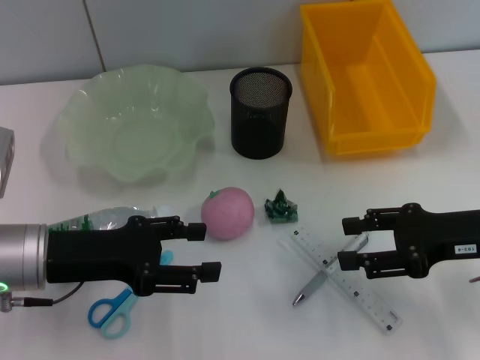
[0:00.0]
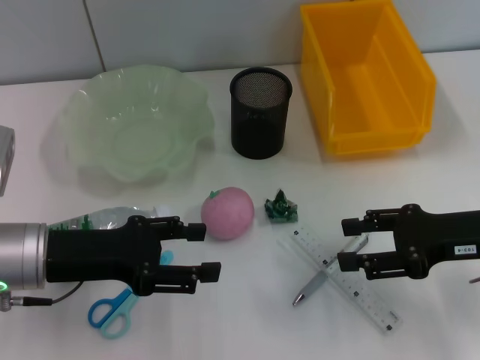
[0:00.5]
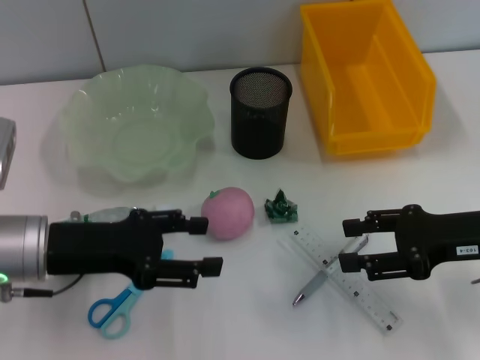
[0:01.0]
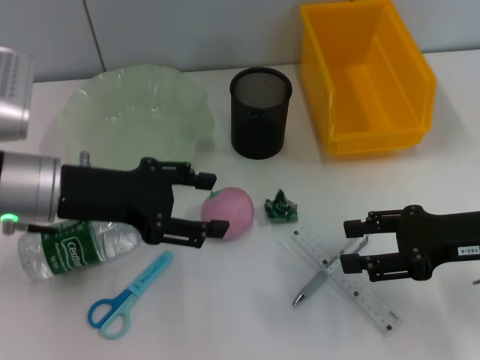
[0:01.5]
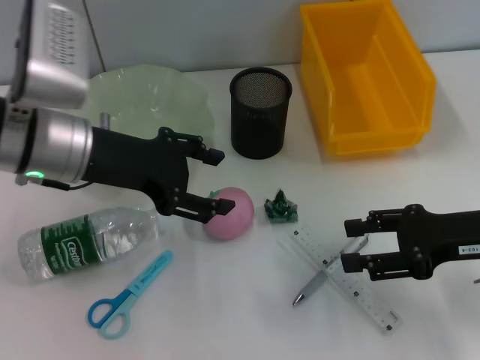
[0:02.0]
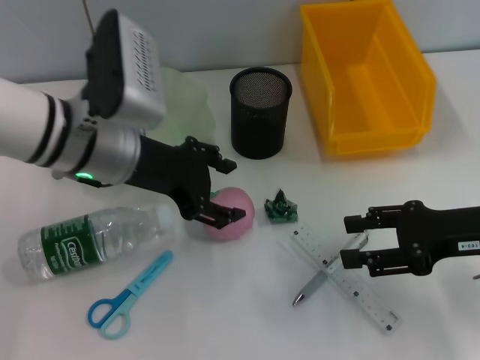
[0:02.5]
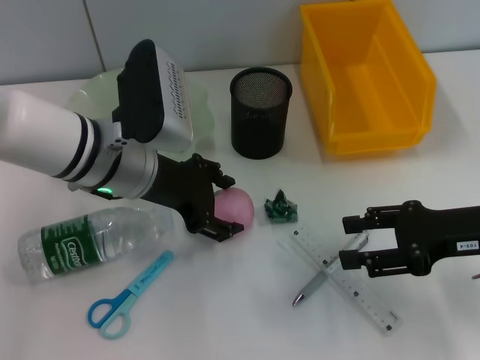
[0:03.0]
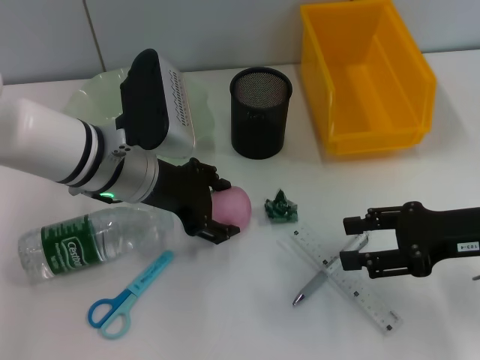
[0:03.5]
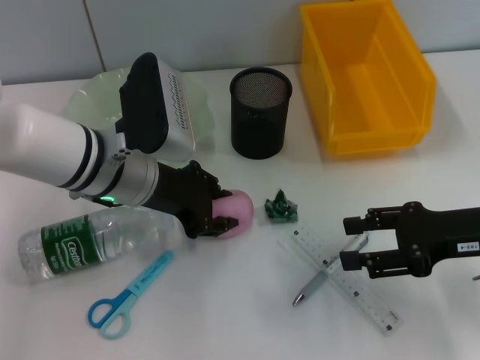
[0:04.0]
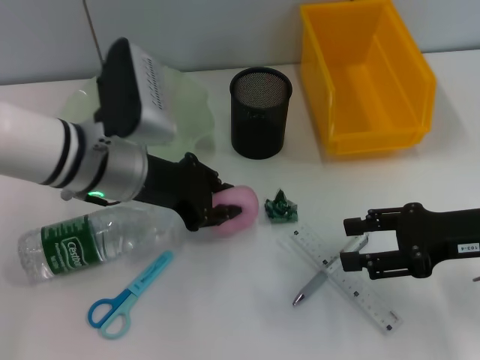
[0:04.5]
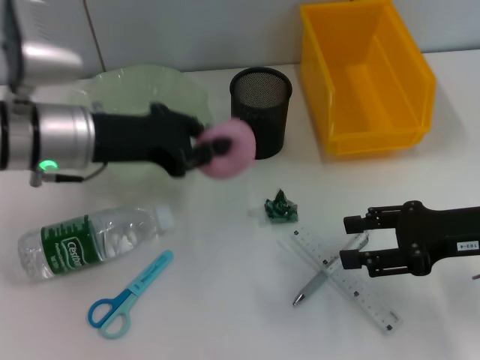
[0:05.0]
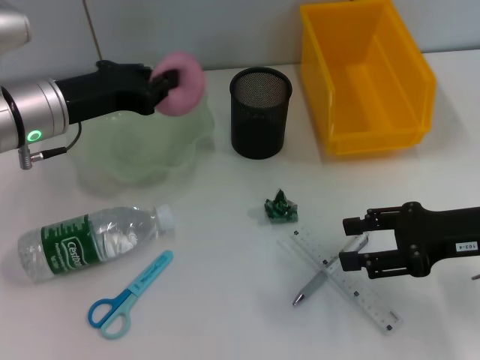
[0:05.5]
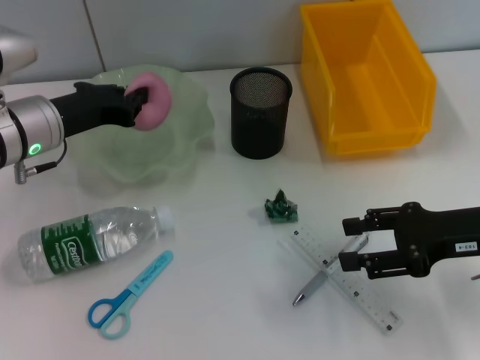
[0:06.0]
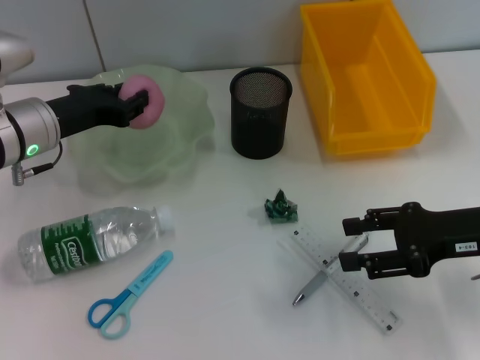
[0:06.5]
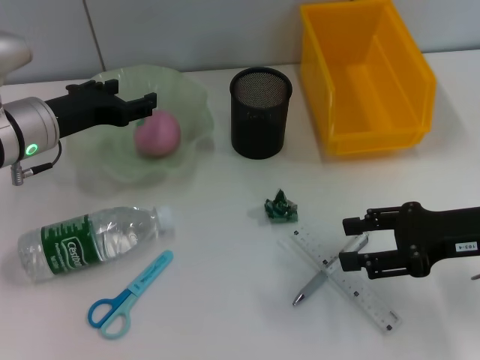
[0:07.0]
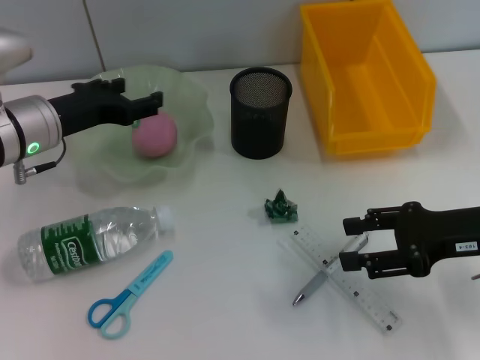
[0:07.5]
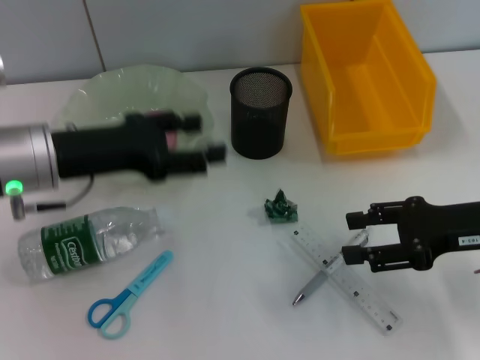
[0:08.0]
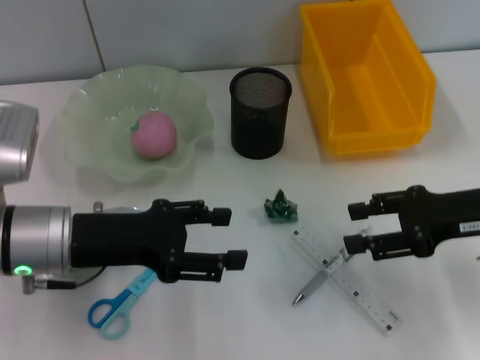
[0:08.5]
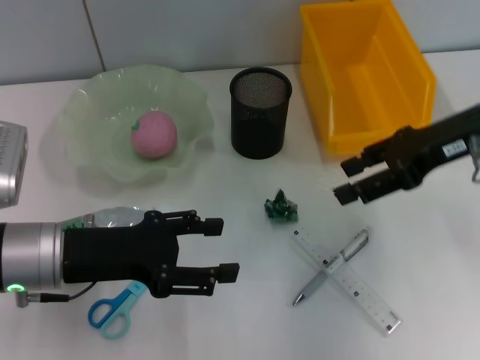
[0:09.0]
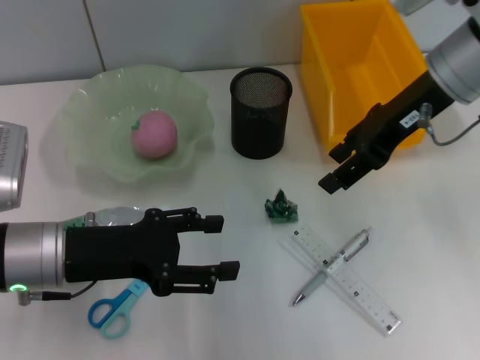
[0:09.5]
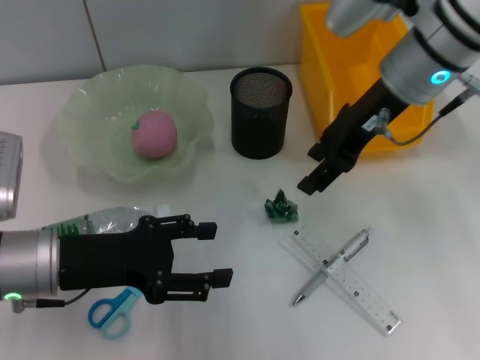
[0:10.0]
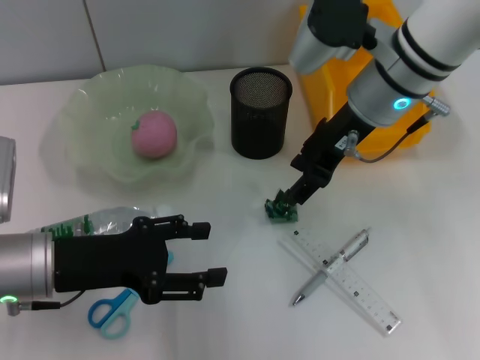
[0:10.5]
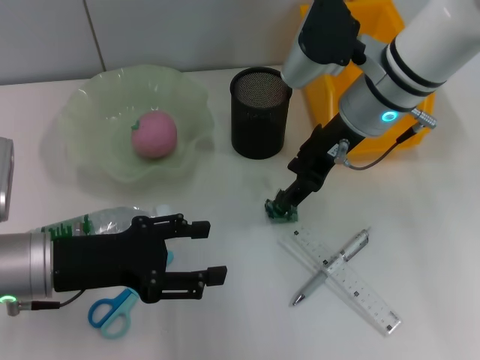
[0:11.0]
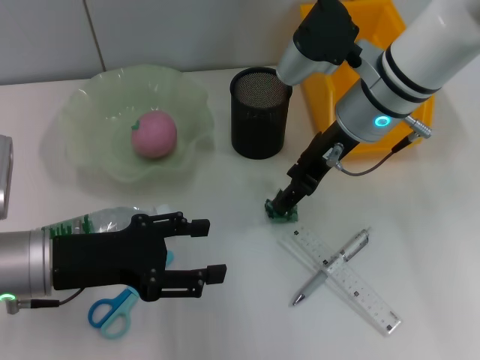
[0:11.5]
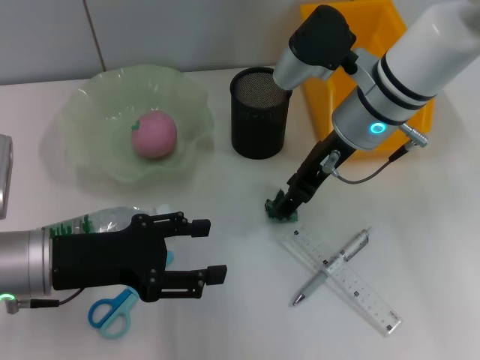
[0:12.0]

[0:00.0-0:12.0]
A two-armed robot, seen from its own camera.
Step, 0:00.0 to 0:04.0: Grab the peach with the left hand.
Step, 0:04.5 to 0:07.5: Place the peach into the fruit bowl with the left hand.
0:00.0 to 0:02.0: The left gripper is displaced upward and forward by approximately 10 cm.
0:02.0 to 0:04.0: The left gripper shifts about 5 cm to the right.
0:04.0 to 0:06.0: The left gripper is displaced to the left by approximately 10 cm, and closes its fingers.
0:06.0 to 0:08.0: The left gripper heads backward, covering about 5 cm, and opens up.
0:08.0 to 0:10.0: The left gripper heads backward and downward, covering roughly 10 cm. The right gripper moves to the left, forward and upward, some 20 cm.
0:10.0 to 0:12.0: The right gripper heads downward, covering some 5 cm.

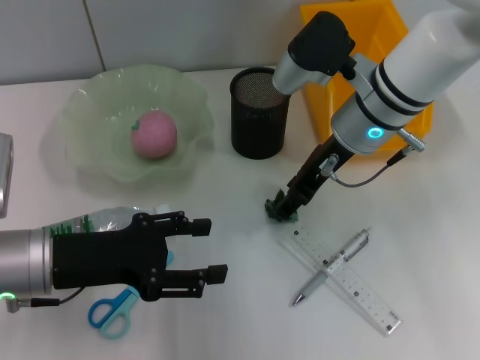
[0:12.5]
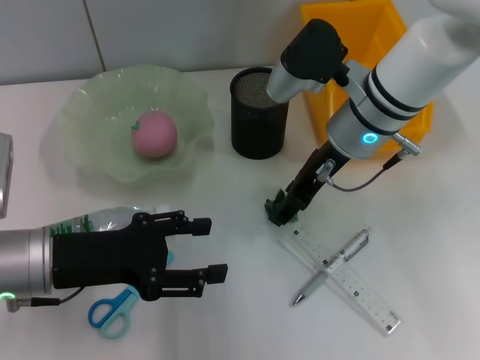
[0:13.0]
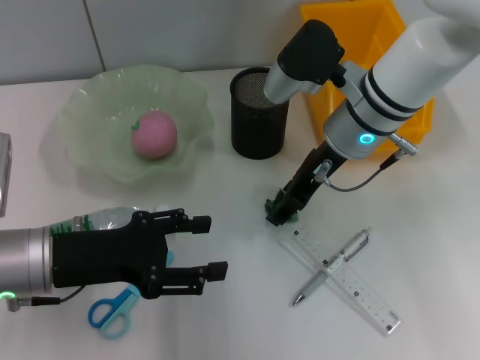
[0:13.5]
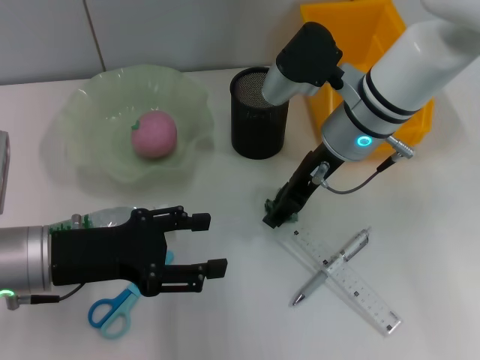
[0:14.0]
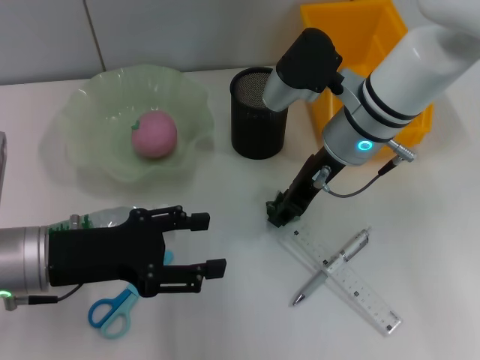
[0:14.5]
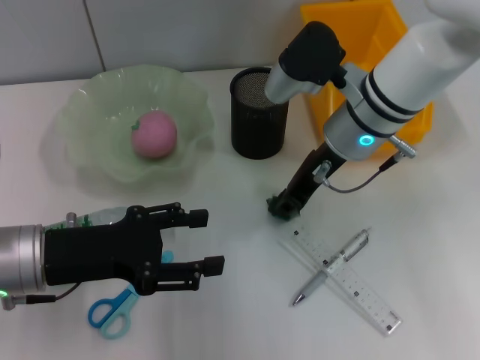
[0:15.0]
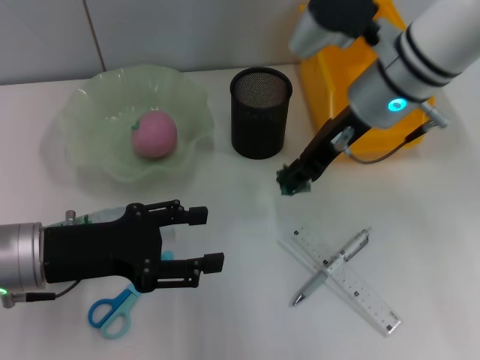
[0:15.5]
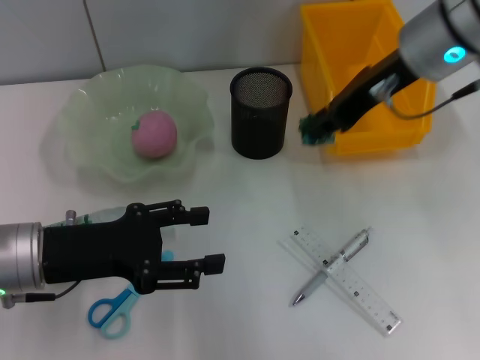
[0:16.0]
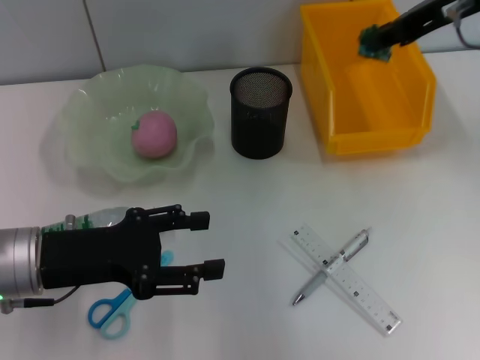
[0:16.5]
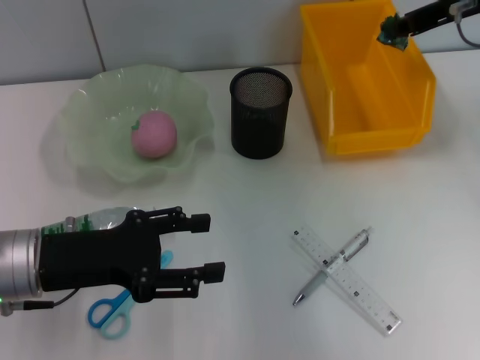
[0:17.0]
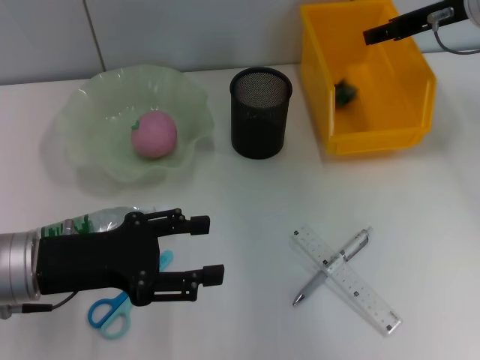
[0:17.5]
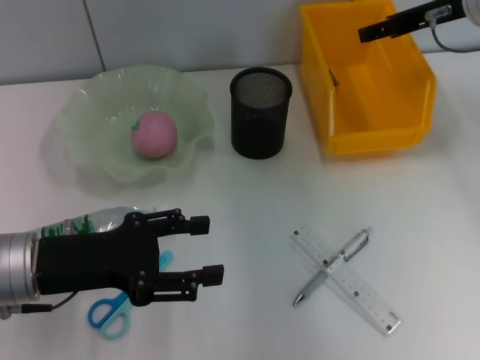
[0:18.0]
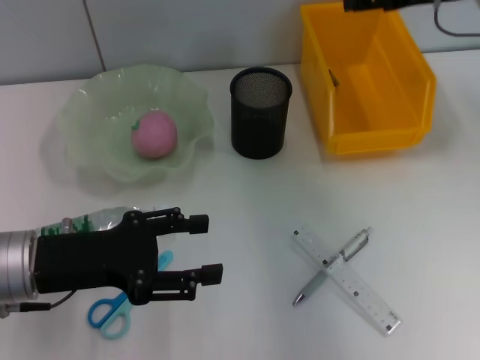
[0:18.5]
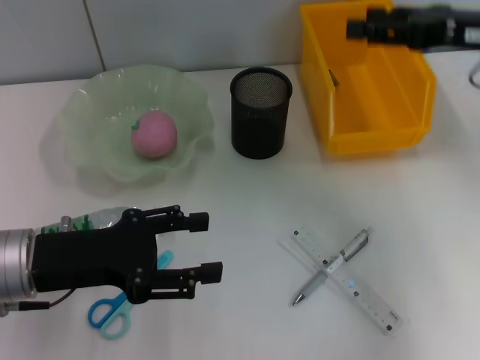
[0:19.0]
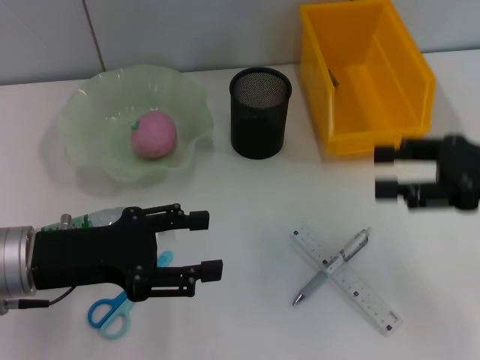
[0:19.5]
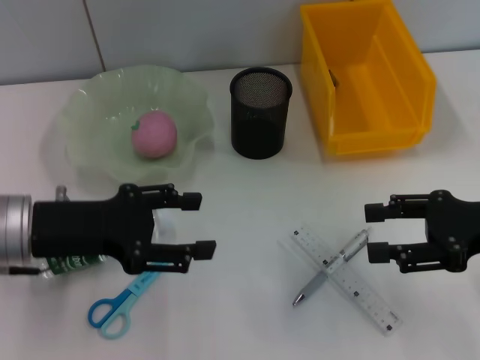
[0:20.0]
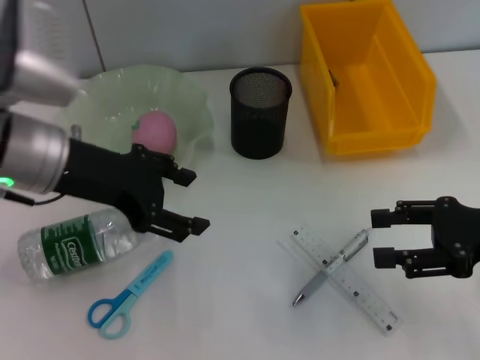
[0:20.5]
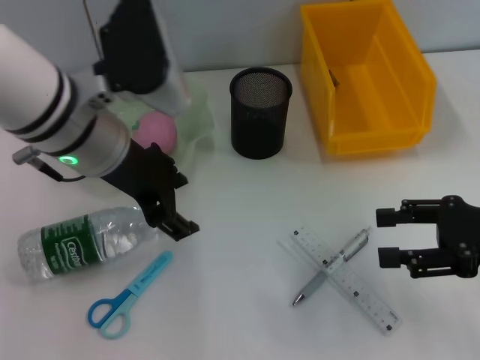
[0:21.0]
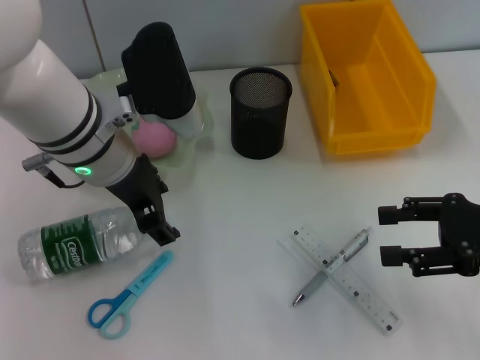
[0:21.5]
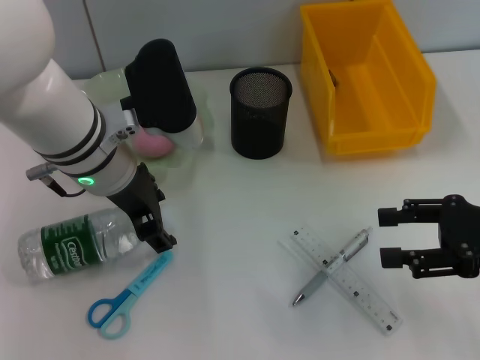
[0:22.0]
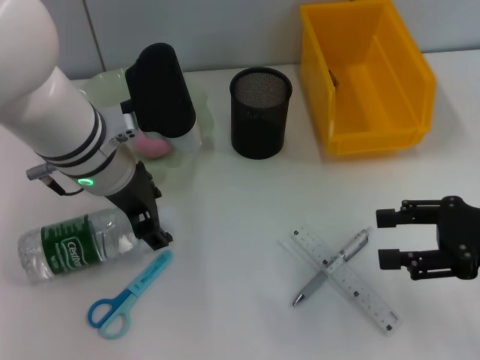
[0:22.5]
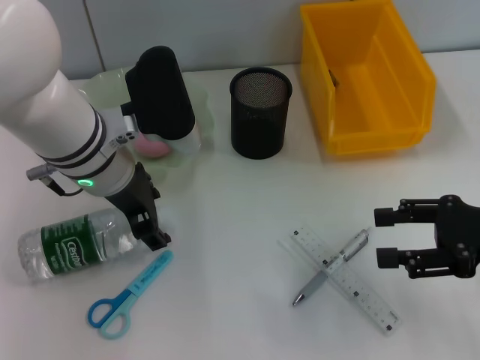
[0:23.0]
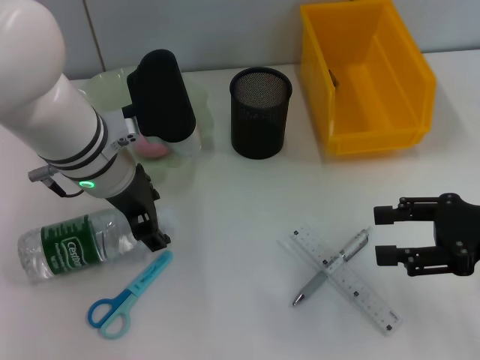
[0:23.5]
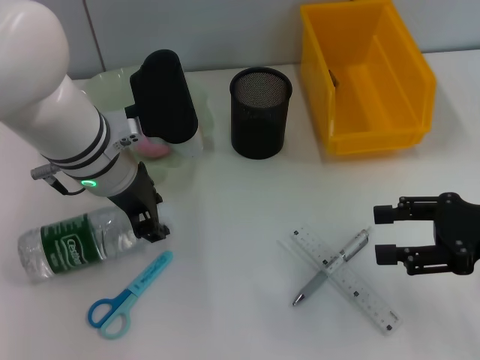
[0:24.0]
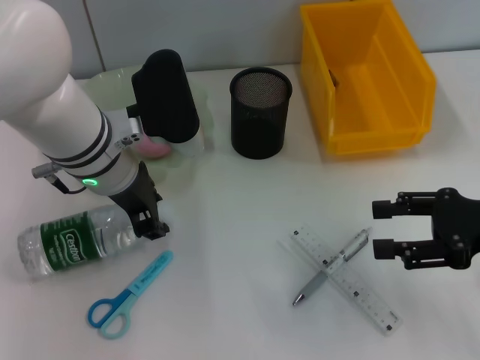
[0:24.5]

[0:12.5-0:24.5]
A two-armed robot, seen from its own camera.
Step, 0:12.5 to 0:14.5: Grab the plastic with the right hand.
Step, 0:15.0 to 0:17.5: Place the plastic into the trash can with the right hand.
0:12.5 to 0:14.5: The grippers stay close to where they were, moving slightly.
0:14.5 to 0:16.5: The right gripper shifts approximately 20 cm upward and to the right, and closes up.
0:16.5 to 0:18.5: The right gripper opens its fingers.
0:18.5 to 0:20.5: The right gripper heads backward and downward, covering some 20 cm, while the left gripper heads upward and forward, covering approximately 10 cm.
0:20.5 to 0:22.5: The left gripper moves to the right, about 5 cm.
0:22.5 to 0:24.5: The left gripper closes its fingers.

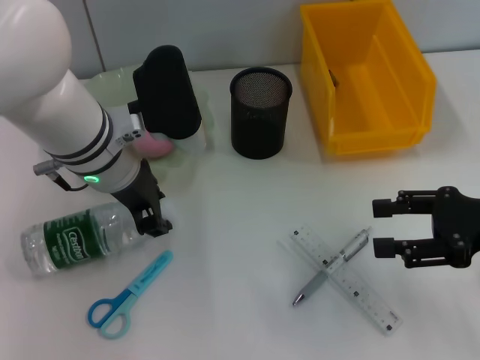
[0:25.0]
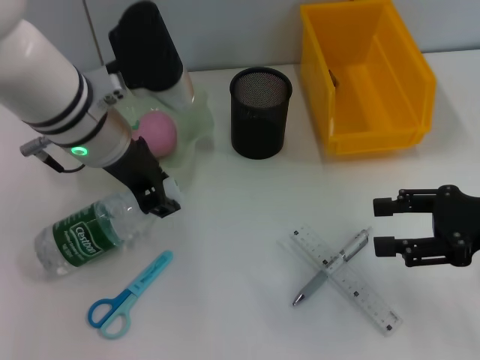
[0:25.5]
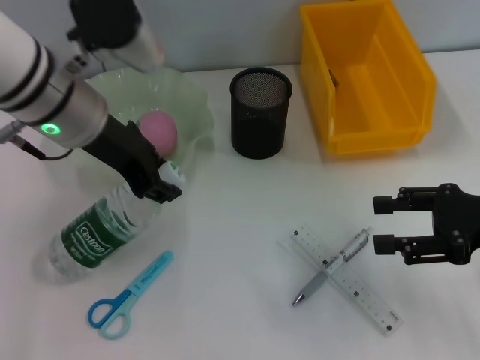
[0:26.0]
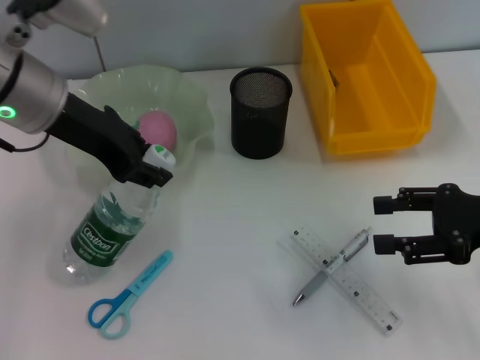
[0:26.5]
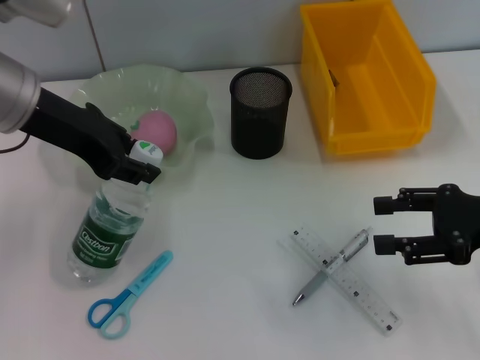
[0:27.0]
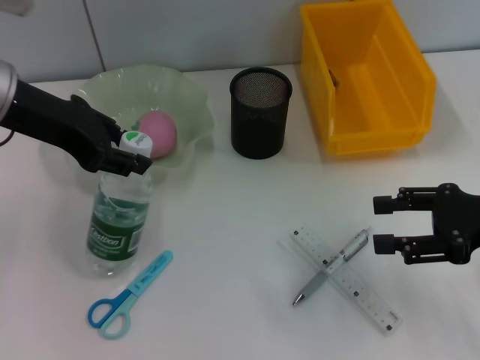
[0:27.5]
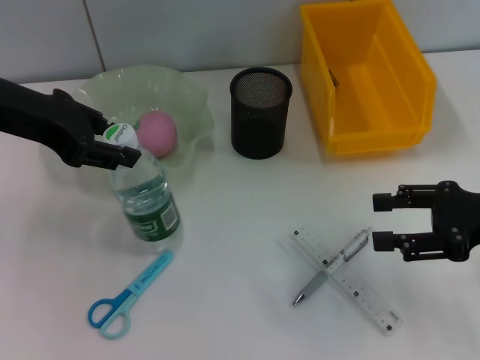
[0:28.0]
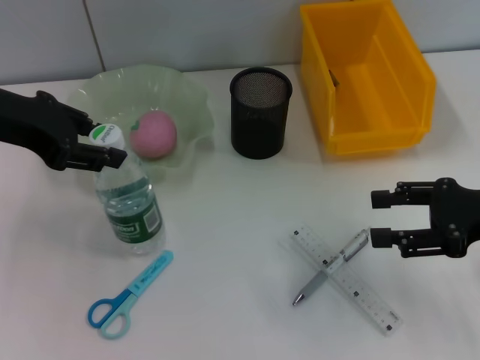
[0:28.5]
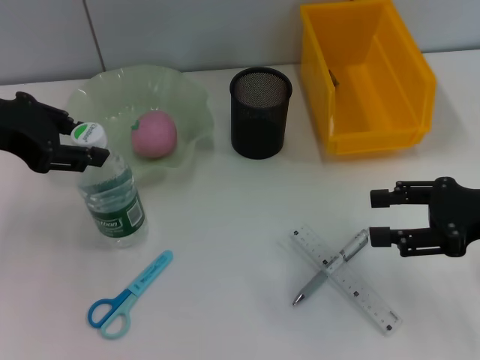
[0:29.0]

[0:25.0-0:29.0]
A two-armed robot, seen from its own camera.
0:25.0 to 0:27.0: The left gripper is displaced to the left and upward by roughly 10 cm.
0:27.0 to 0:29.0: The left gripper is displaced to the left by approximately 5 cm.
